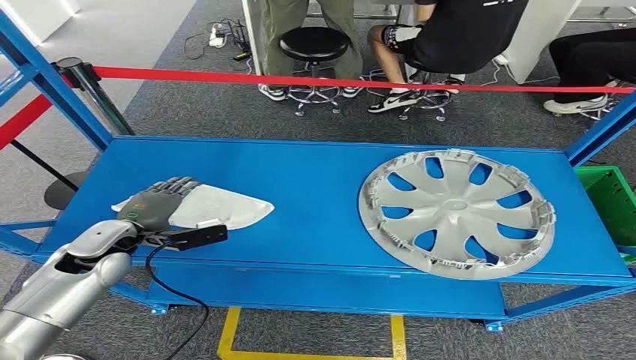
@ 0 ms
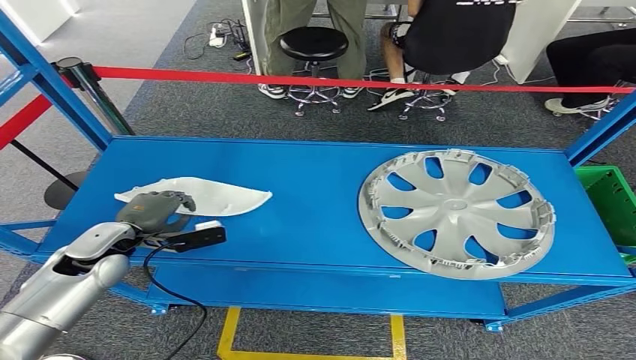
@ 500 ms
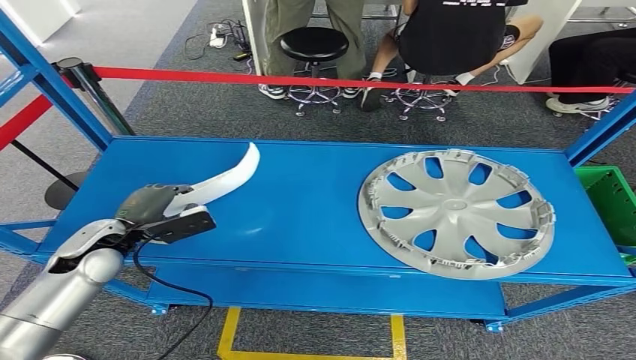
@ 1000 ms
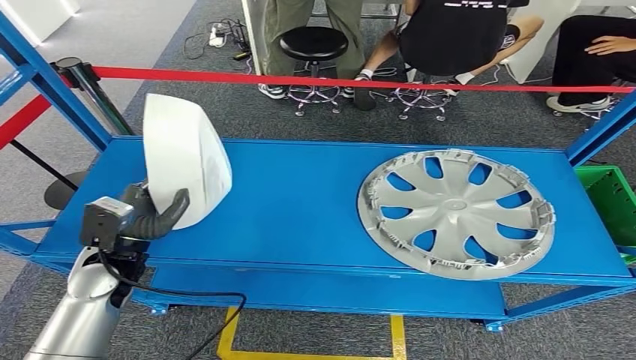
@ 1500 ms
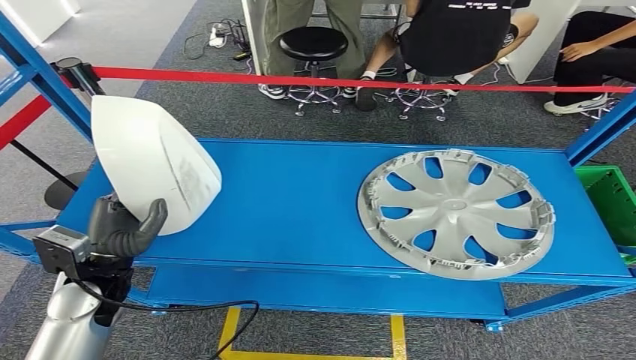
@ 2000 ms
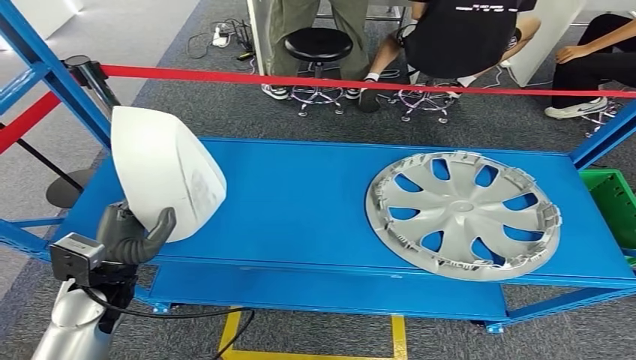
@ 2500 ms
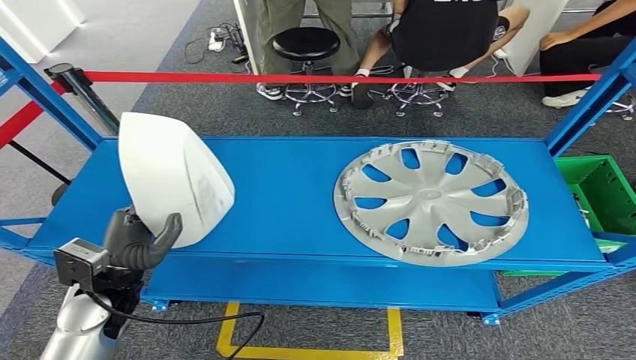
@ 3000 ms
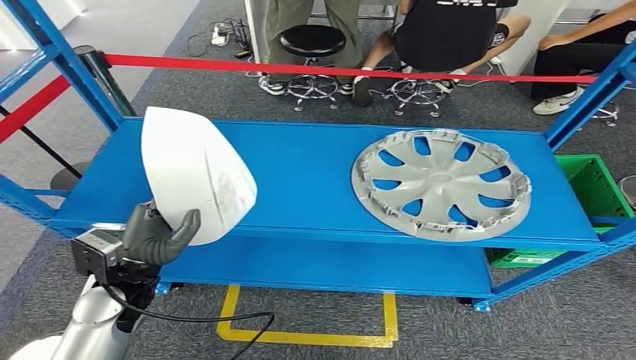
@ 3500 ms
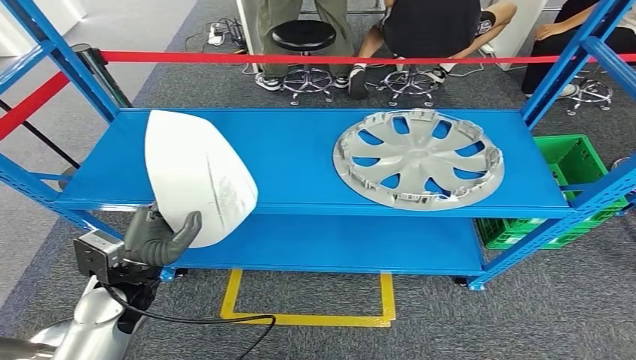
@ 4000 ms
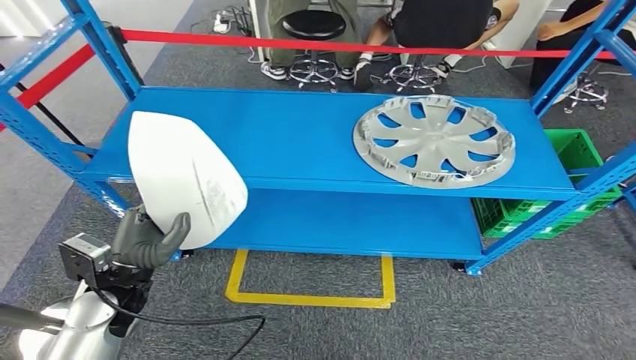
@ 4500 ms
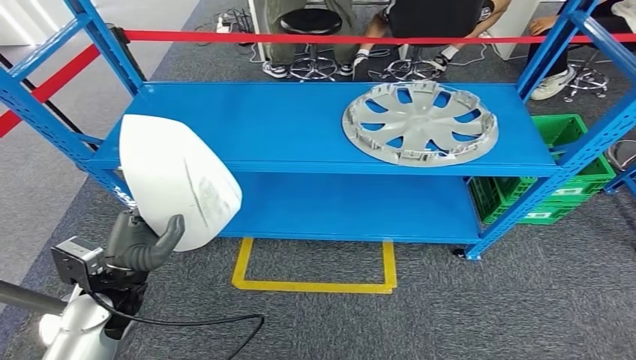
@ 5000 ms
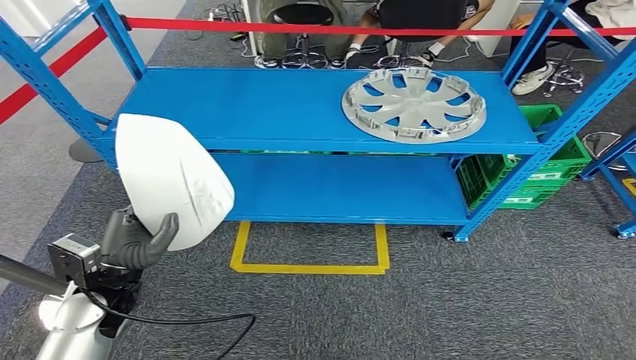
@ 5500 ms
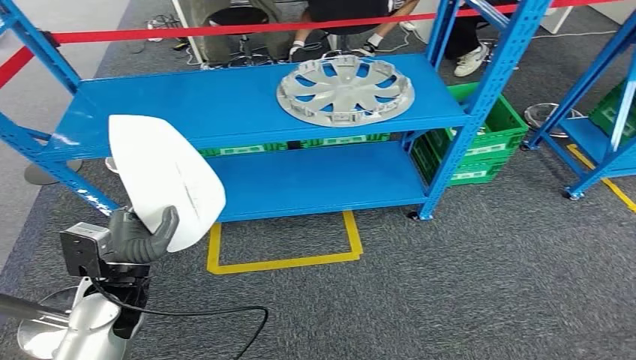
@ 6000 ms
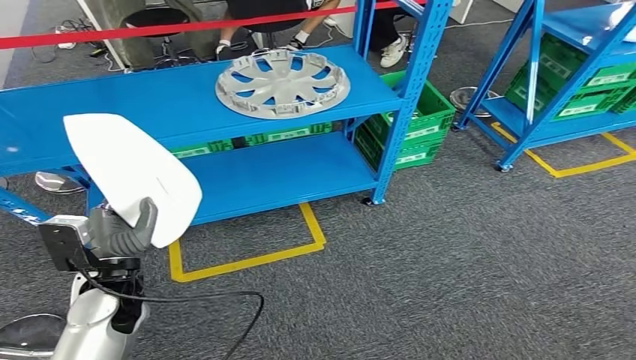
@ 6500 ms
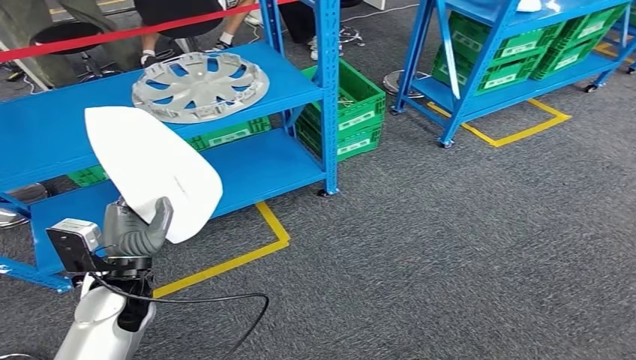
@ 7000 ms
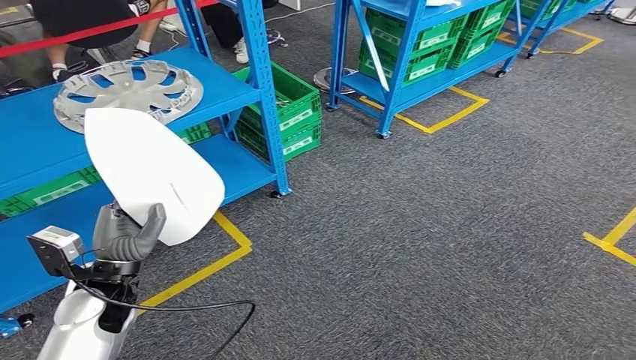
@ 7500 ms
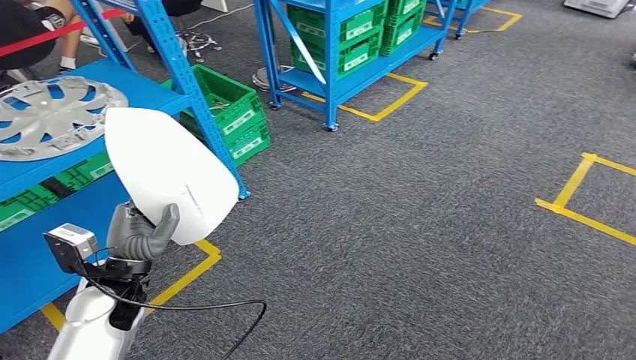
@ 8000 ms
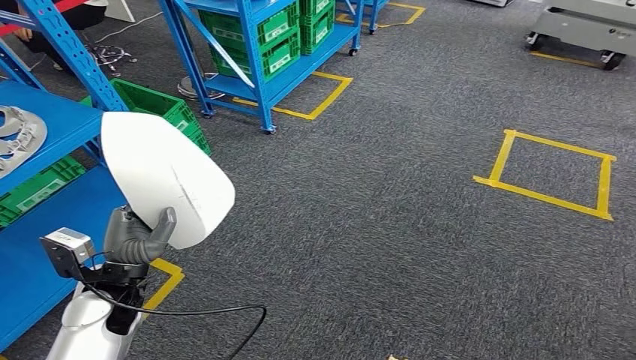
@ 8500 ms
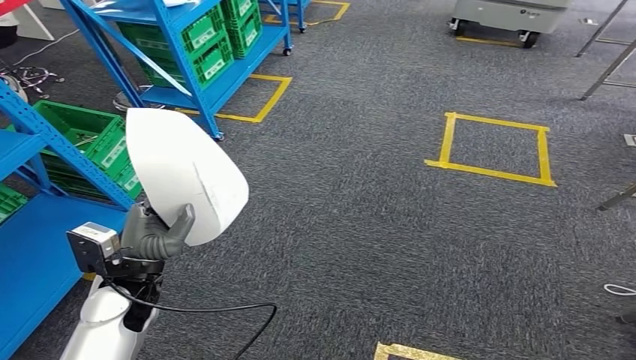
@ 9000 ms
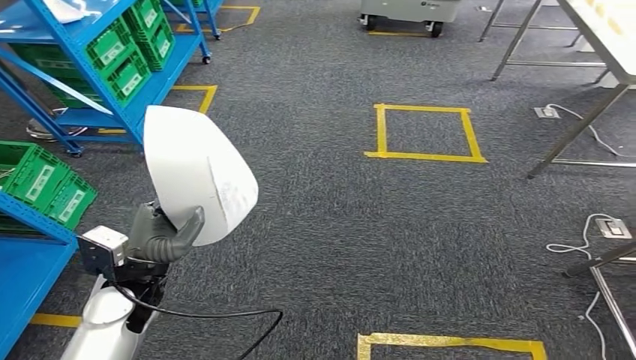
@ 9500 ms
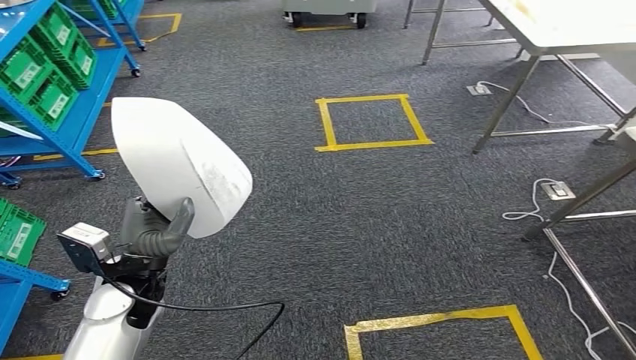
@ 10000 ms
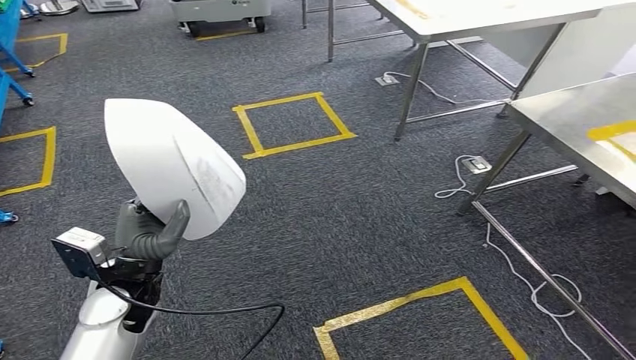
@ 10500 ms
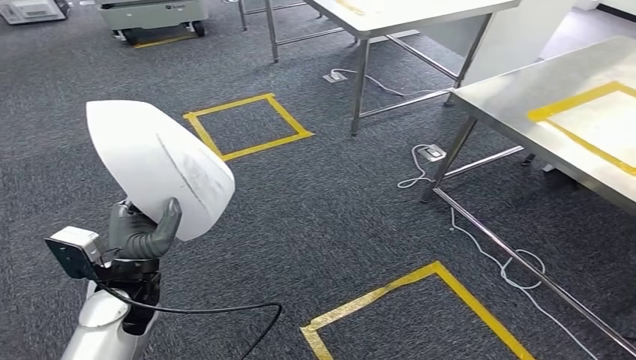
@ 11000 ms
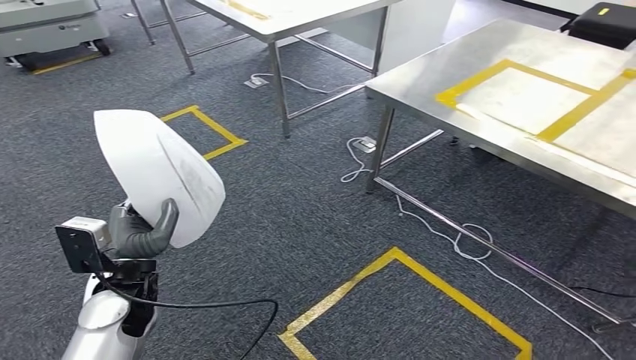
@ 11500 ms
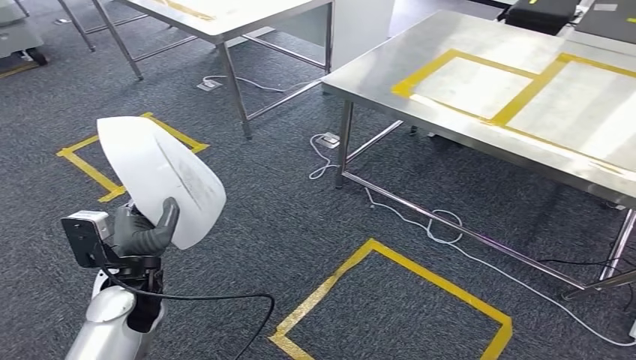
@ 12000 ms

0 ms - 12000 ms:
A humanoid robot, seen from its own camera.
Step, 0 ms - 4000 ms: Pick up the small parts from the shelf.

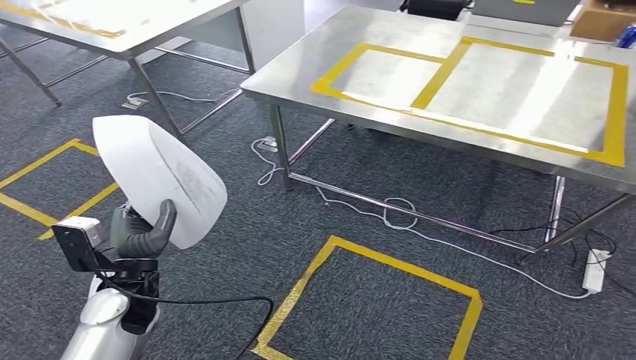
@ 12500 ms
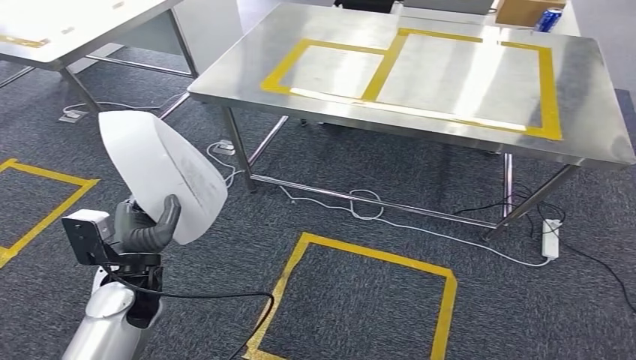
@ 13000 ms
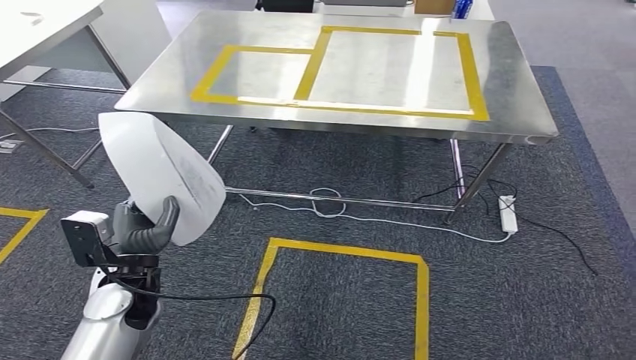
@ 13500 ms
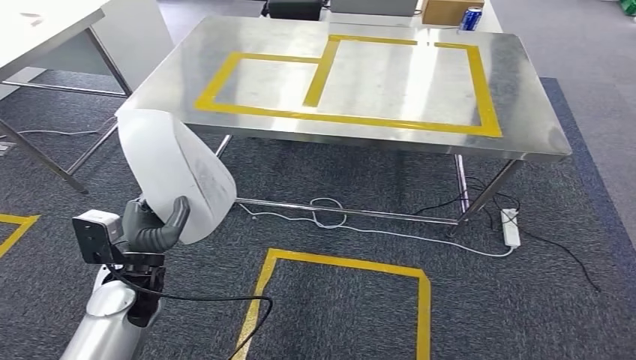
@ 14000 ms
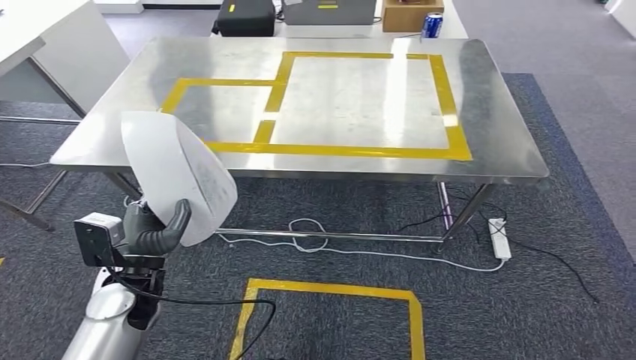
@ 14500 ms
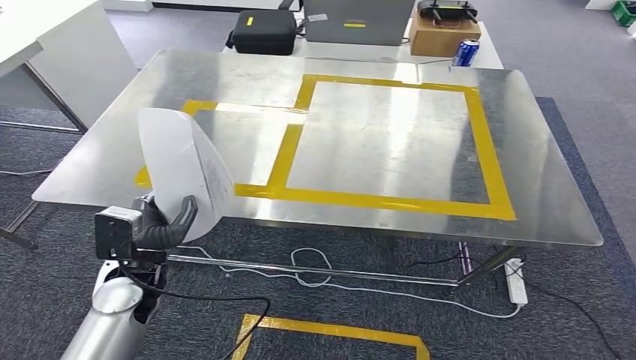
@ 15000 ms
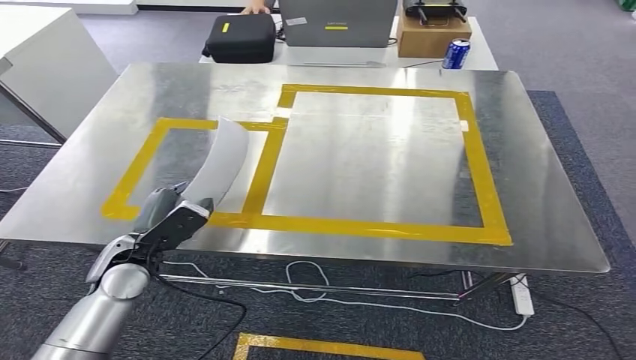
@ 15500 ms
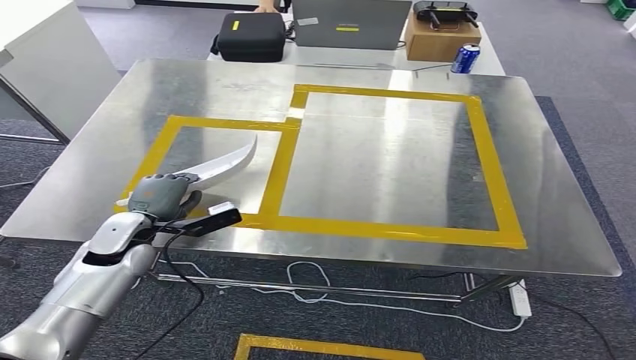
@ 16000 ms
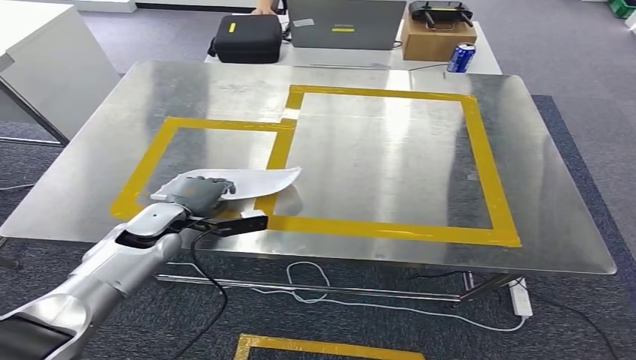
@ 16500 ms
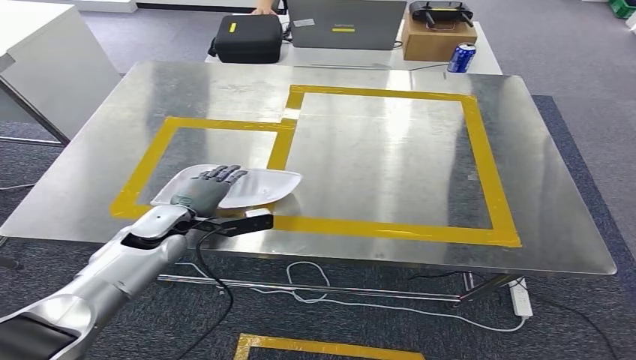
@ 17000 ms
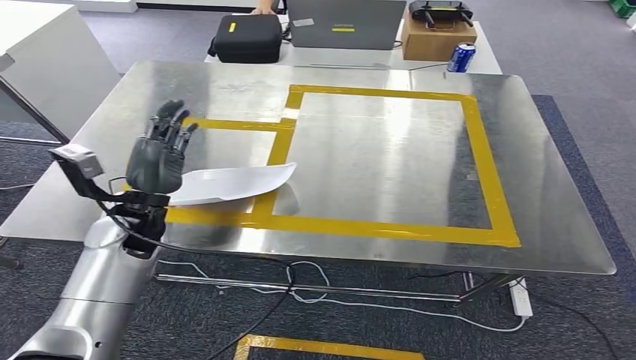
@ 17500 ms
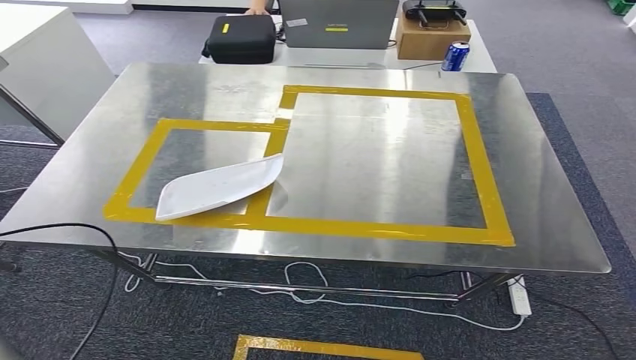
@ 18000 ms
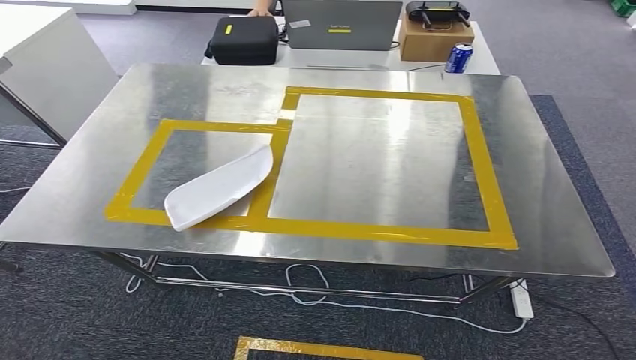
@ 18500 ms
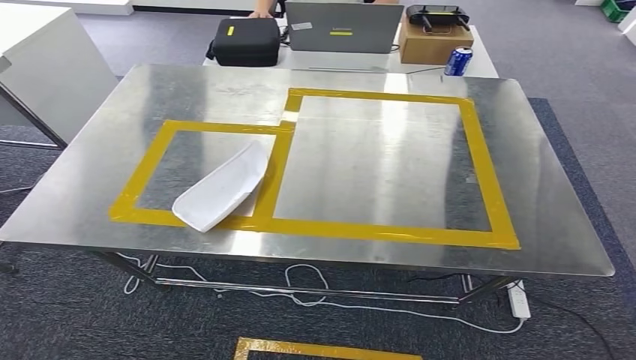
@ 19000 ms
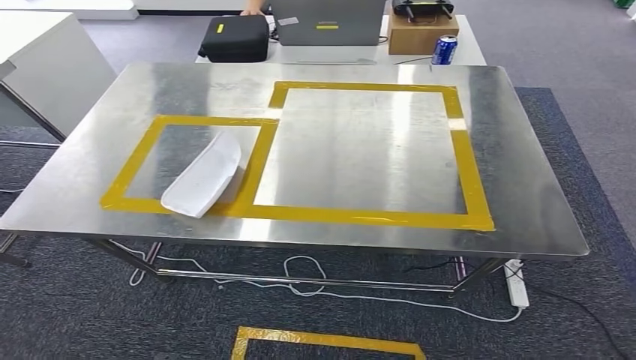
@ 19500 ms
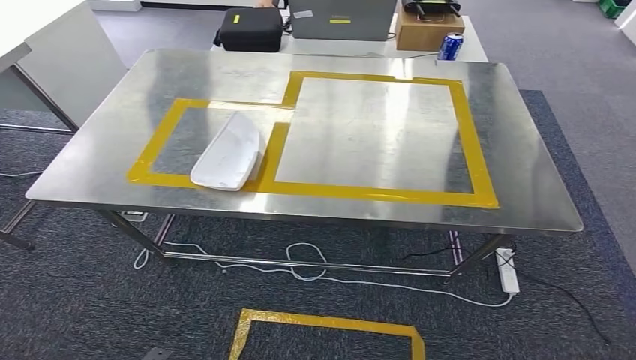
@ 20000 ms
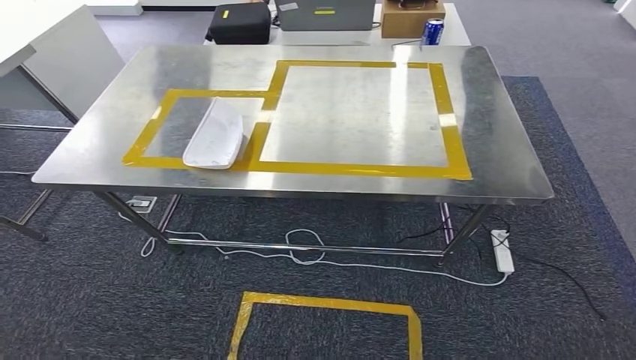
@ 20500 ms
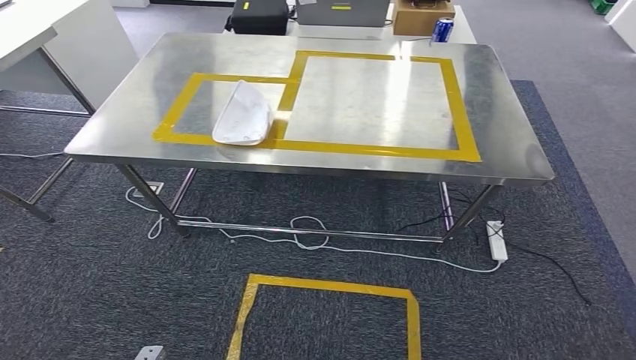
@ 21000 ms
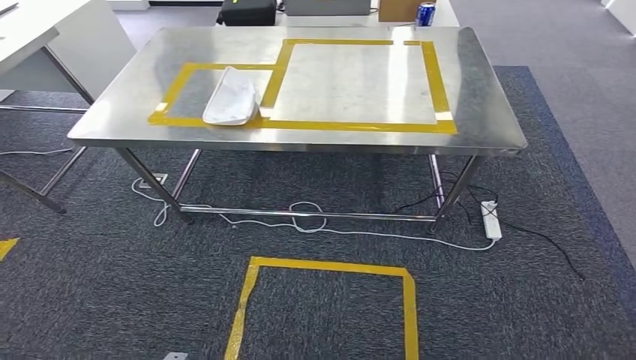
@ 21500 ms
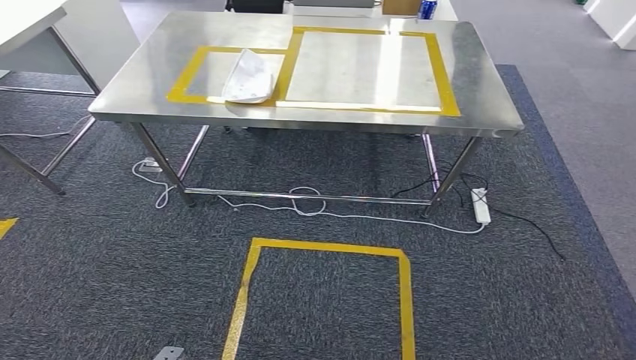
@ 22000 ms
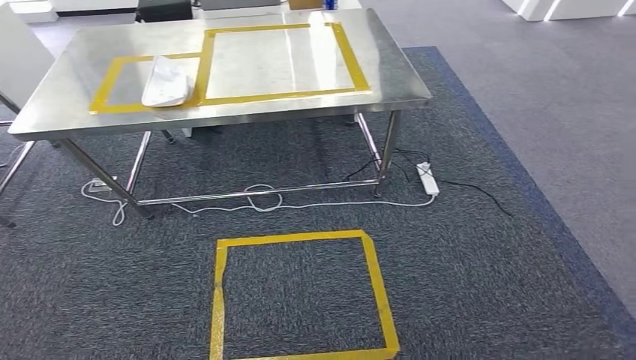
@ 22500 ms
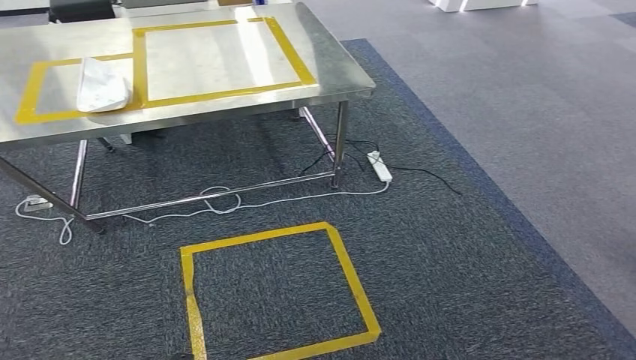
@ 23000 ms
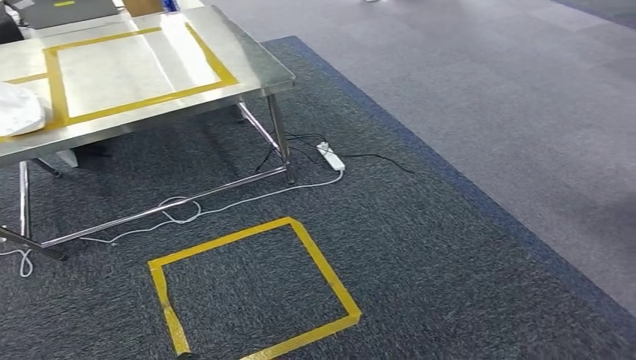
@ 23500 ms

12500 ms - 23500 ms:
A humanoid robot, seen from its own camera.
Step, 12500 ms - 15000 ms: Move the small parts to the workbench.
Step, 15500 ms - 20000 ms: Insert the small parts into the corresponding holes on the workbench.
16000 ms - 18000 ms: The left hand shifts about 20 cm to the left.
